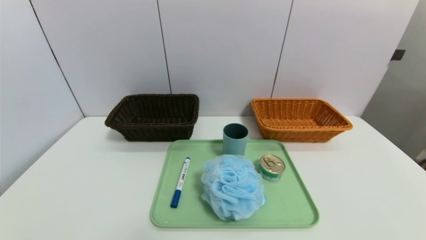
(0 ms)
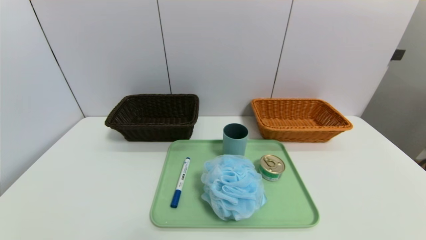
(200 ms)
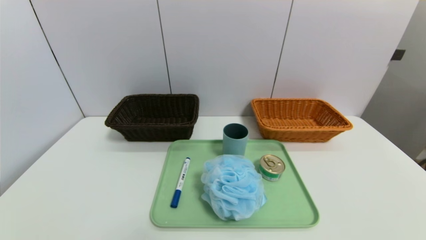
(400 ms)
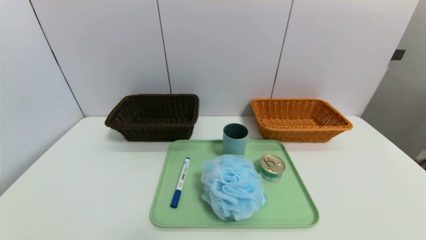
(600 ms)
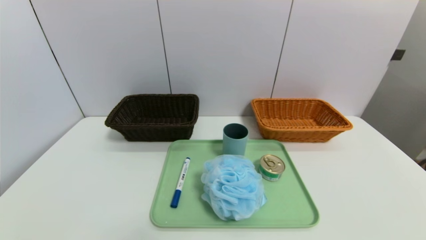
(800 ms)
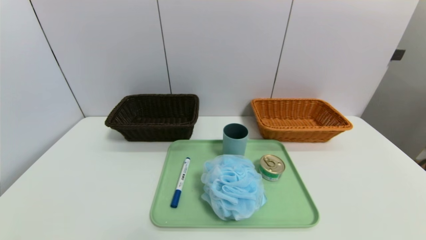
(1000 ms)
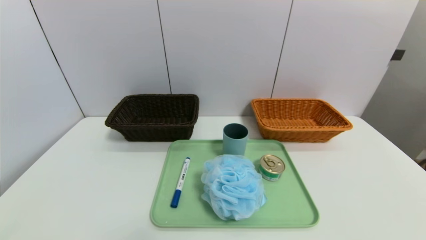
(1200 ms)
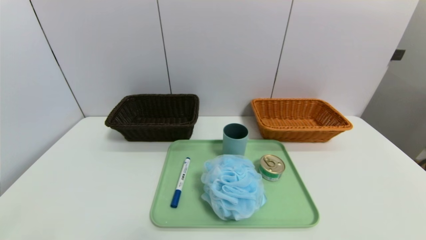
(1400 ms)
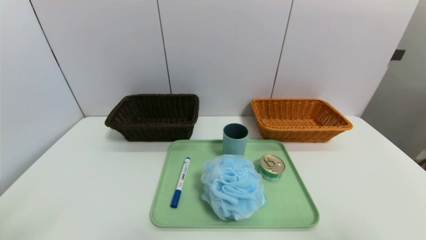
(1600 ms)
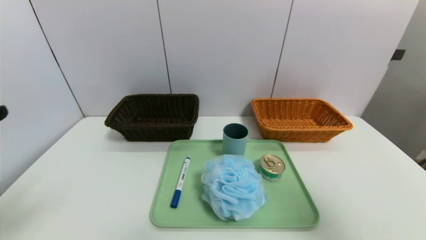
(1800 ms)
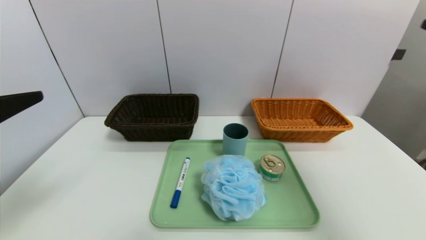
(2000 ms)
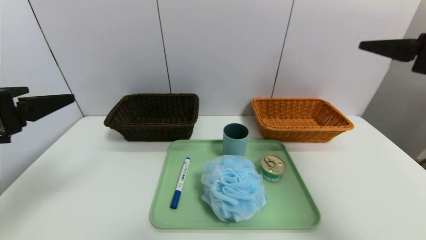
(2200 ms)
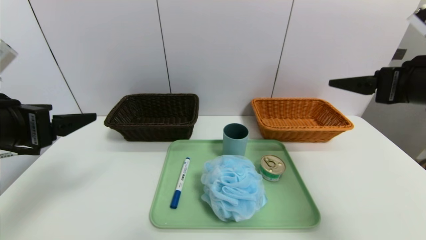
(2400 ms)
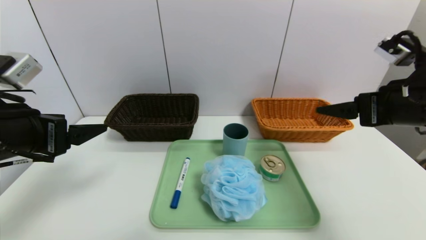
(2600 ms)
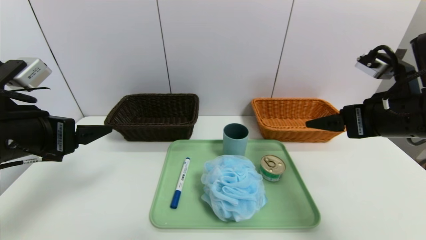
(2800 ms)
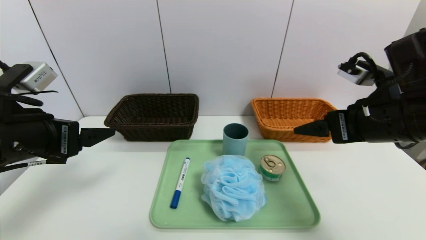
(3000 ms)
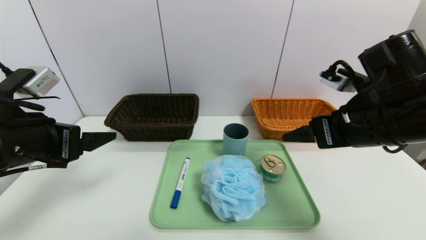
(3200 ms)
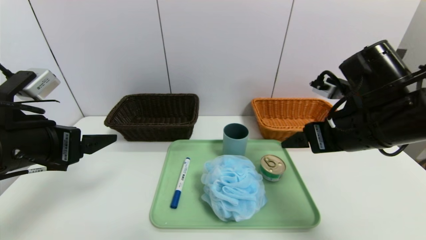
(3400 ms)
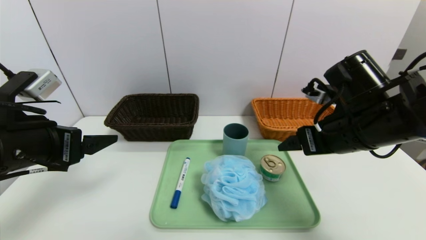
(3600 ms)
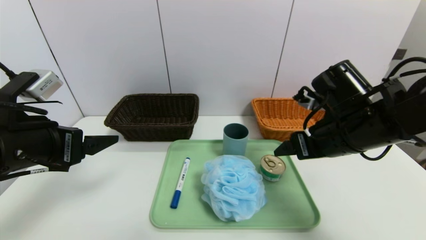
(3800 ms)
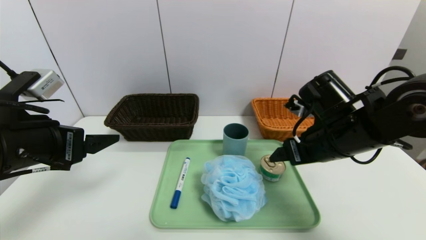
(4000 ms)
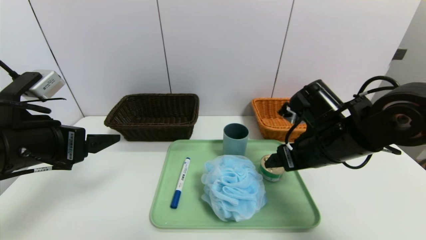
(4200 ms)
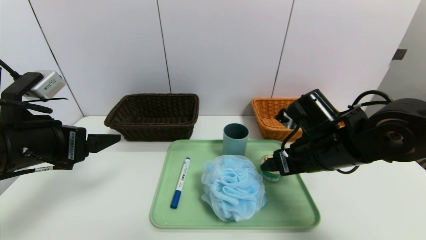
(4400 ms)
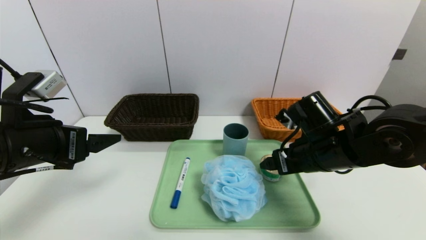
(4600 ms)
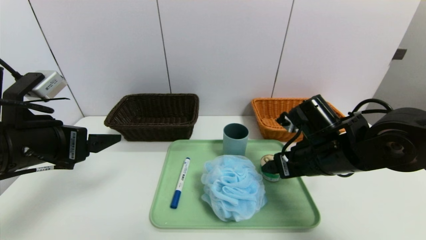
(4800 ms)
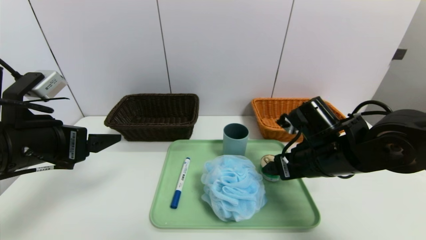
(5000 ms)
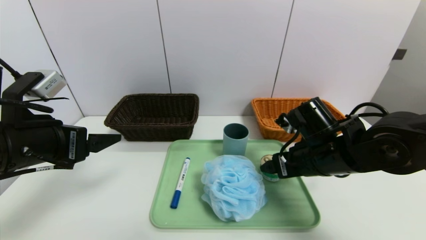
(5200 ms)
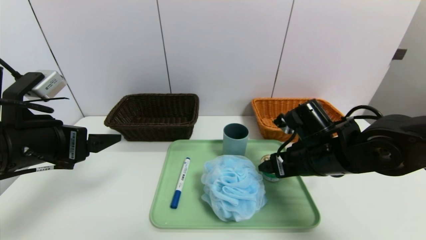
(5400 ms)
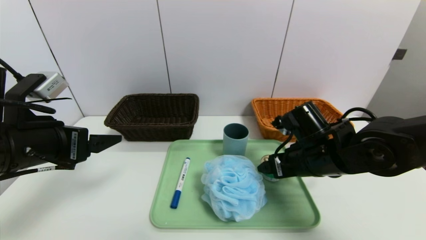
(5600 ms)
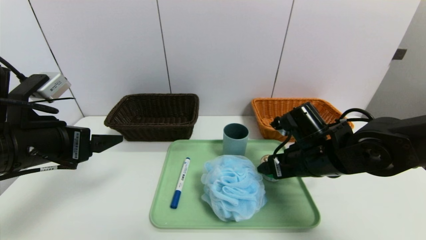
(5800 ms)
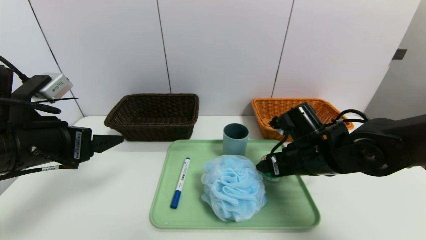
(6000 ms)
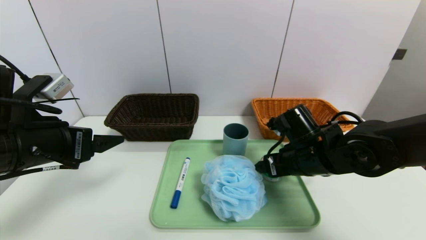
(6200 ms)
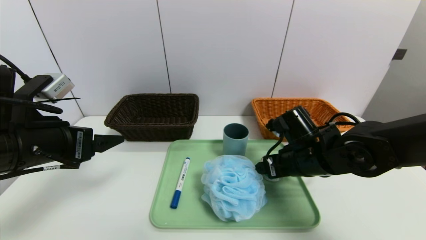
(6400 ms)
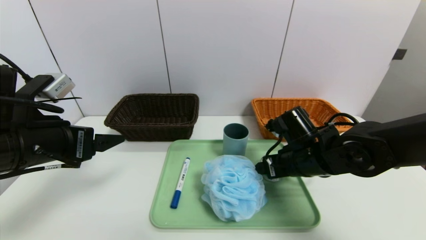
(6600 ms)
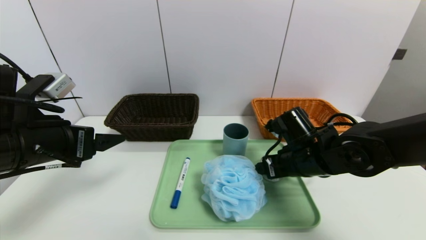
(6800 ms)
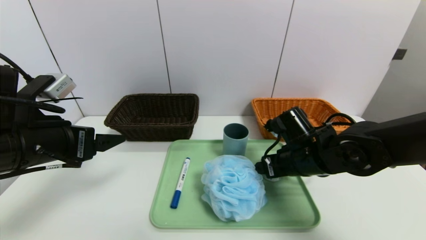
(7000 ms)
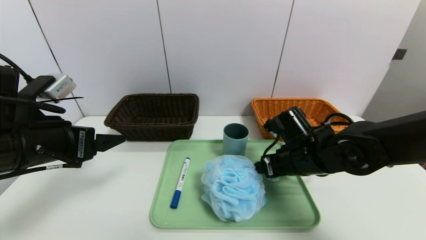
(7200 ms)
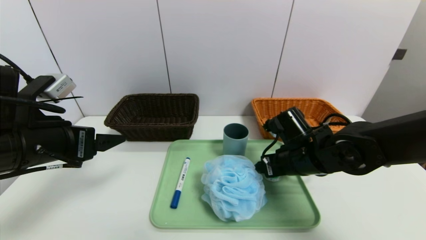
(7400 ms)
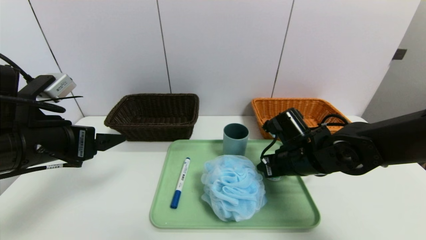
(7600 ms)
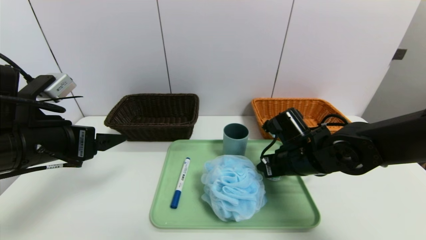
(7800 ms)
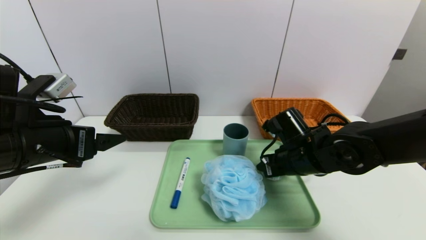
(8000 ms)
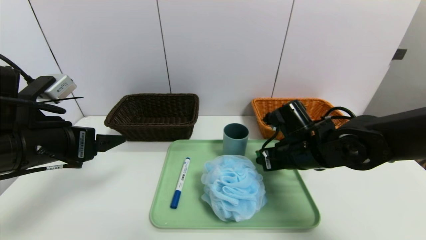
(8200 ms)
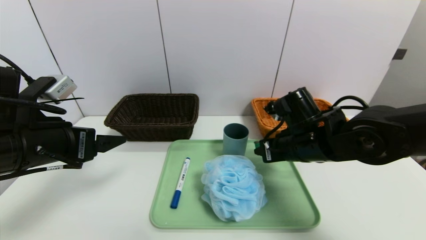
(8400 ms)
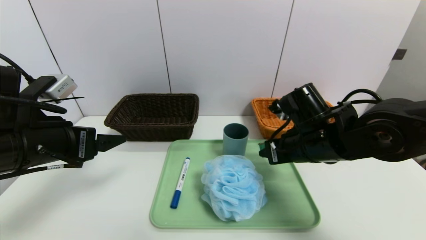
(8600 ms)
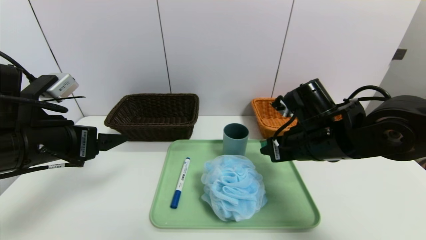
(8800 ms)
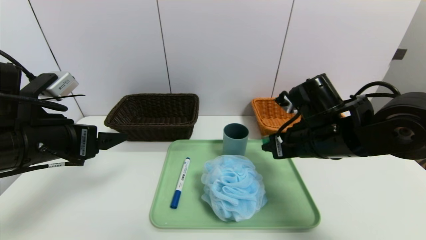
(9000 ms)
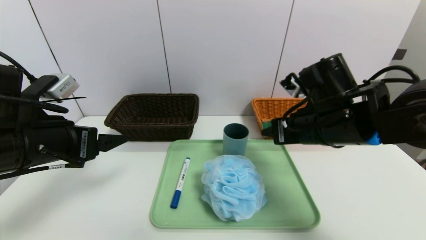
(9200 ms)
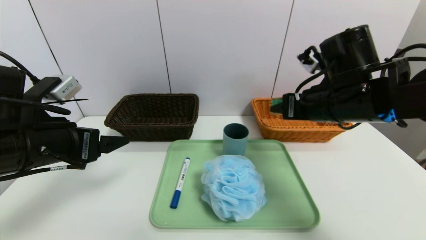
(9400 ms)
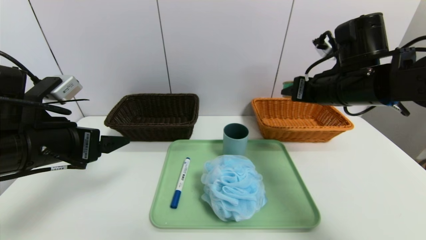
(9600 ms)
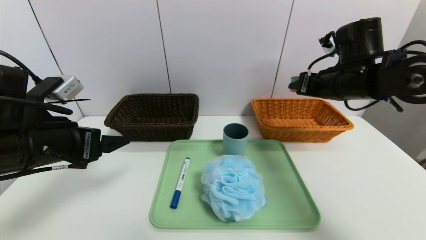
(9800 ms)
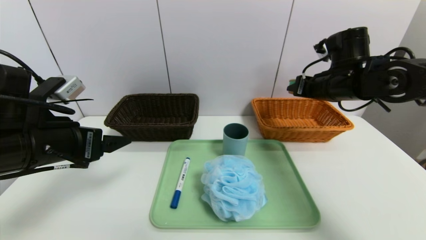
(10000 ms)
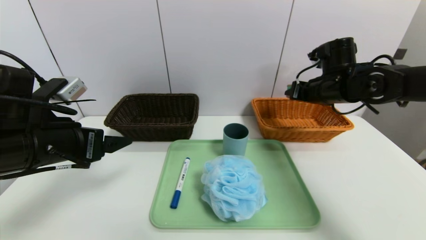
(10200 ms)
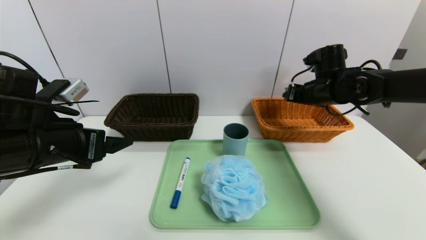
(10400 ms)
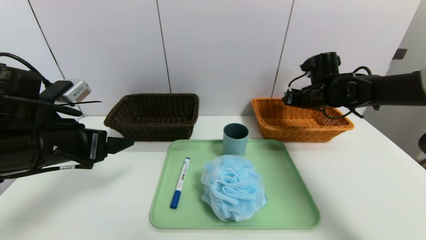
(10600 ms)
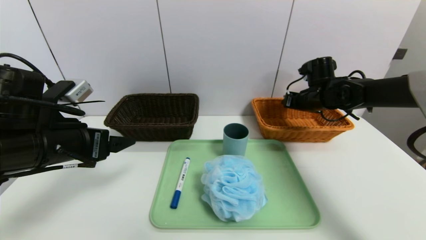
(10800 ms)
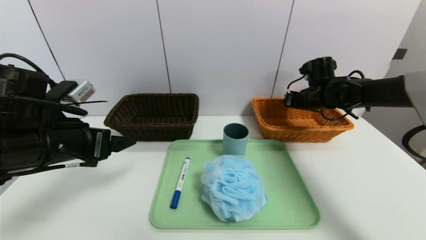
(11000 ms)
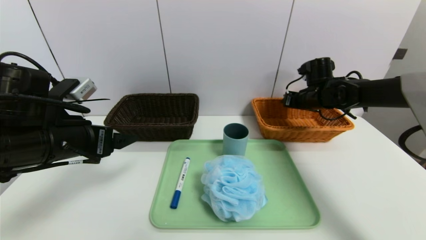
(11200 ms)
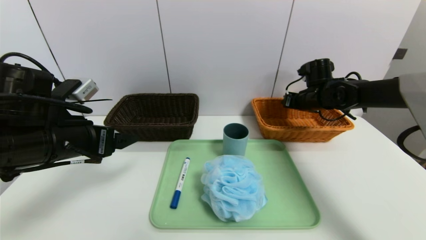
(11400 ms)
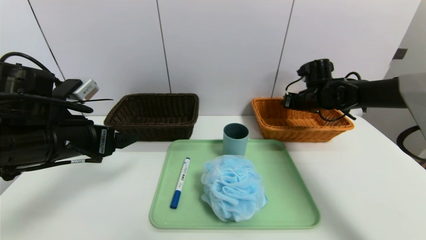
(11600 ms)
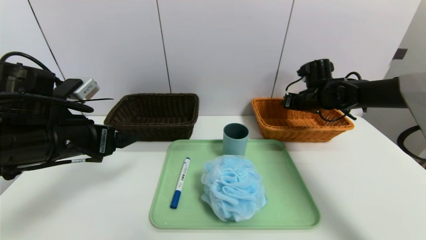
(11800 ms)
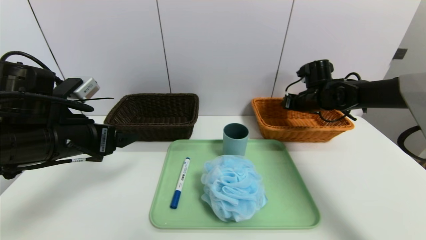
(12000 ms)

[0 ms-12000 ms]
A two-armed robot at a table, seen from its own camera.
Task of the whole recording: place the food in the right basket with the right gripper, and place the non food items in the left basket with the left gripper.
1600 ms to 3000 ms: The left gripper travels forward by about 15 cm. Meanwhile the right gripper shifts some 25 cm forward and to the left.
3000 ms to 4400 ms: The right gripper heads downward and to the left, covering approximately 10 cm.
4400 ms to 6000 ms: The grippers move only a little.
6000 ms to 7600 ms: The right gripper closes its fingers.
7600 ms to 9000 ms: The right gripper goes roughly 10 cm upward.
9000 ms to 10400 ms: The right gripper moves forward and to the right, roughly 20 cm.
10400 ms to 12000 ms: The grippers make only small movements.

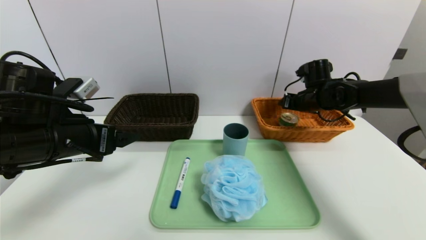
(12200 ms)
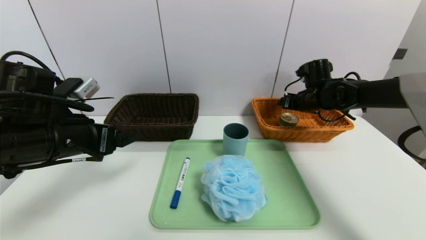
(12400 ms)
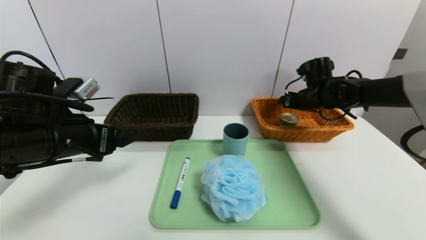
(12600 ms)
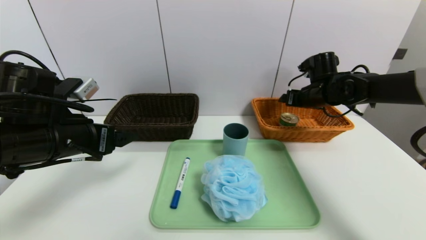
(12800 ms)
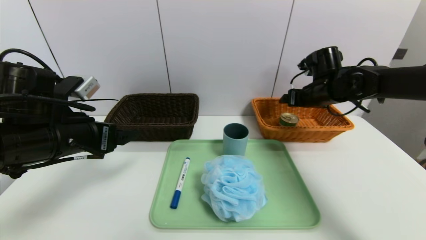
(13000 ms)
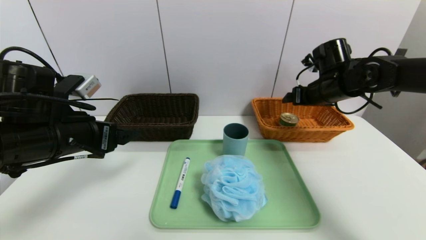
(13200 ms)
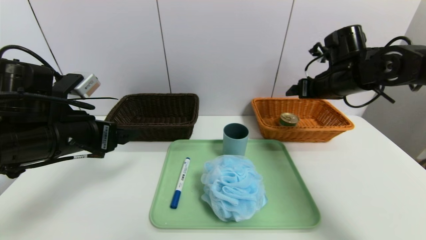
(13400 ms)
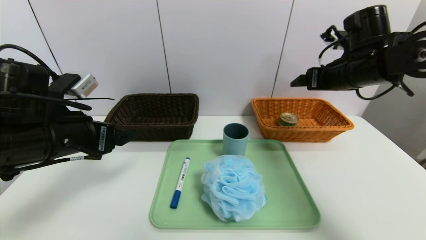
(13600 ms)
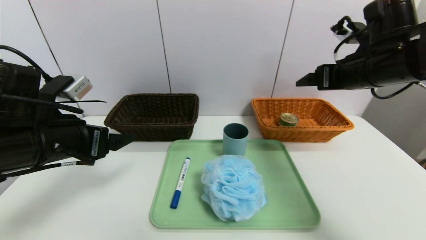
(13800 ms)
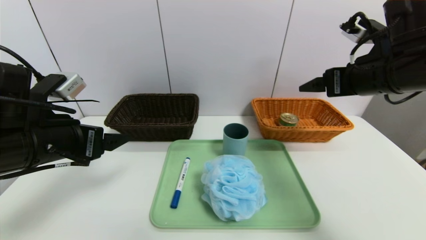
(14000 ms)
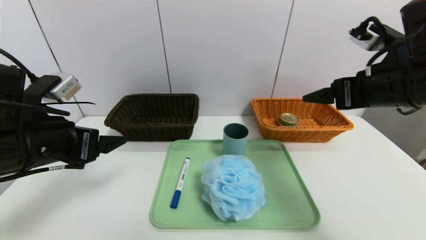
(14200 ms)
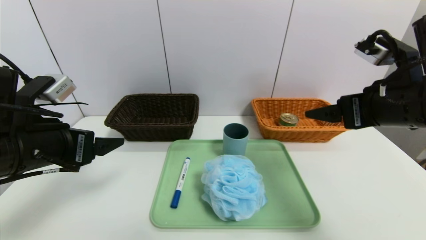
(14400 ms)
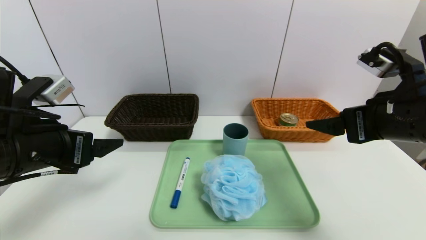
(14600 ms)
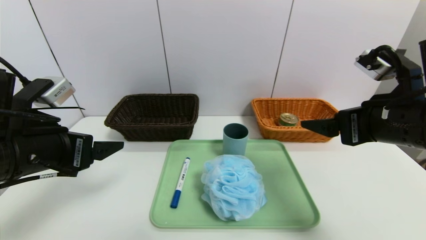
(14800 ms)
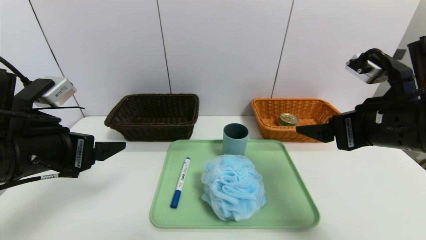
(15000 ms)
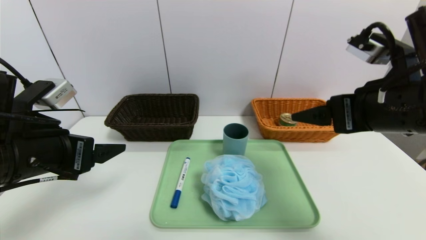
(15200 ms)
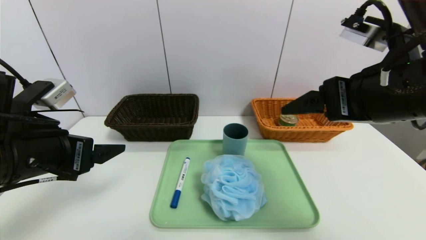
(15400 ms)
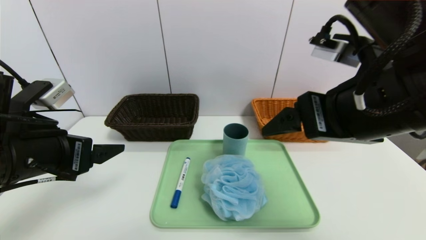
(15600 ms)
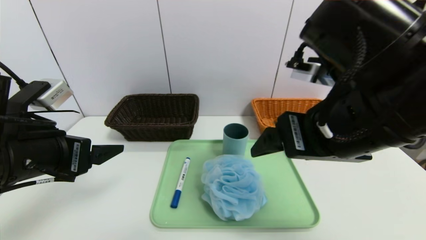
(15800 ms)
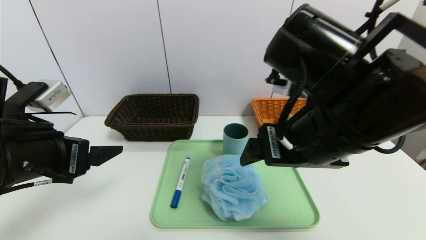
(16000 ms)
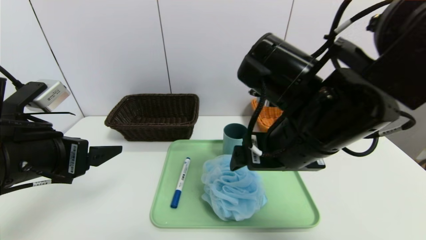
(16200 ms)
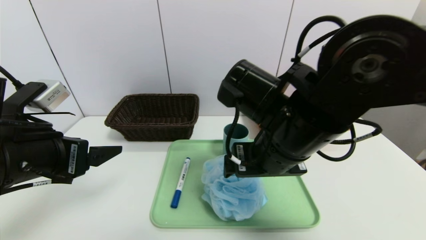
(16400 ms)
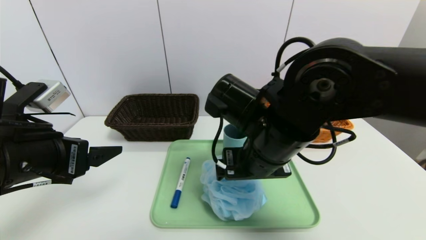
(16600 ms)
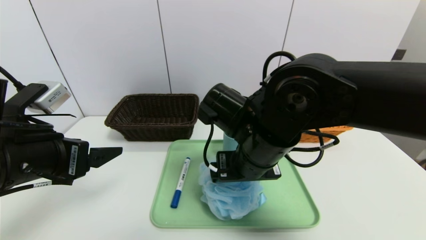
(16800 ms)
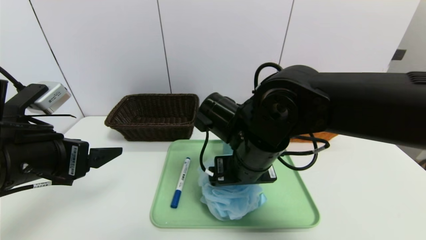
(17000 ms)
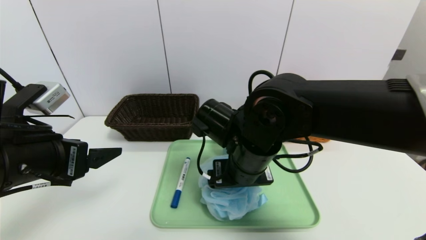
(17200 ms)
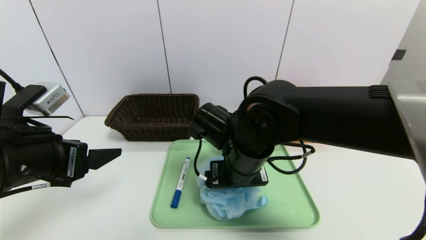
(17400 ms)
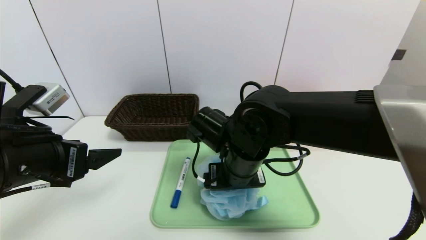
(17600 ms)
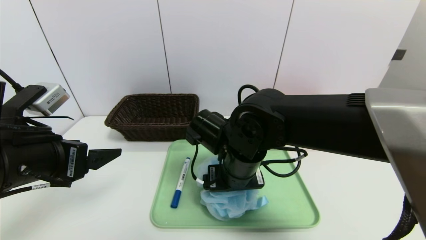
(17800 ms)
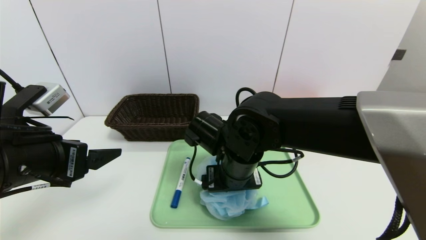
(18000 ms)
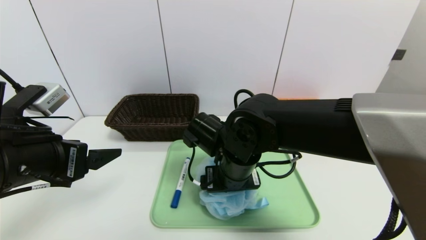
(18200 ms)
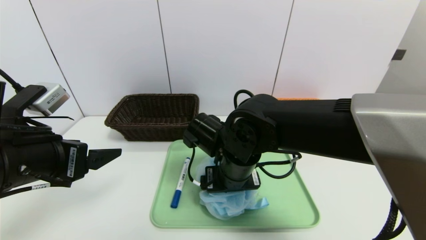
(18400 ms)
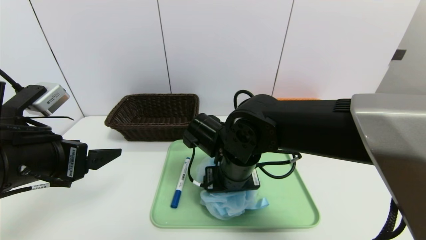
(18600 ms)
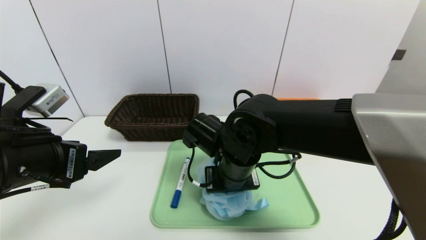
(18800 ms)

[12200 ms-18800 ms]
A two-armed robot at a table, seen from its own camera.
Task of the whole recording: place the food in the right basket with the right gripper, and place the non food items in the left basket with the left gripper.
12200 ms to 13800 ms: The right gripper shifts some 20 cm backward and upward, and opens its fingers.
13800 ms to 15400 ms: The right gripper shifts roughly 15 cm backward and to the left.
15400 ms to 17200 ms: The right gripper travels to the left, downward and forward by approximately 20 cm.
17200 ms to 18800 ms: The right gripper closes.
